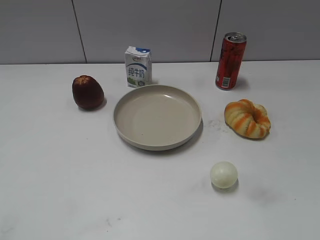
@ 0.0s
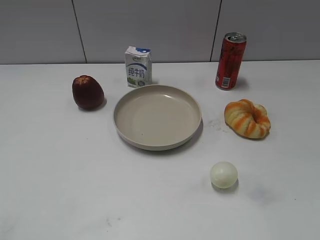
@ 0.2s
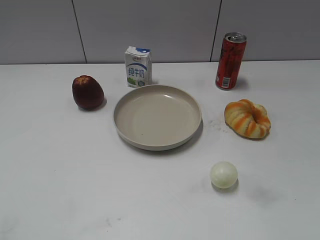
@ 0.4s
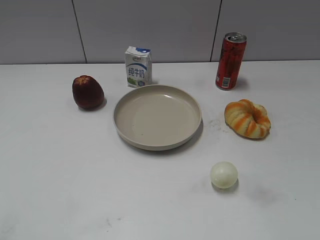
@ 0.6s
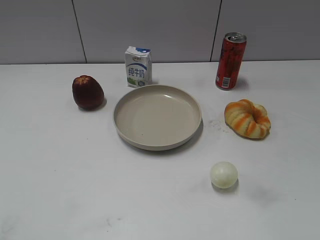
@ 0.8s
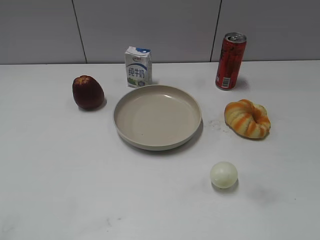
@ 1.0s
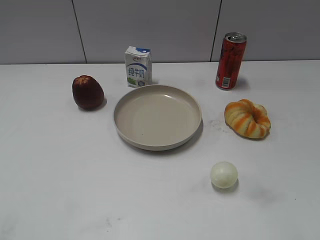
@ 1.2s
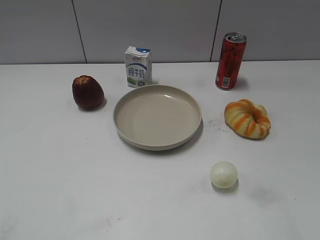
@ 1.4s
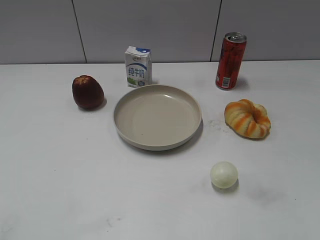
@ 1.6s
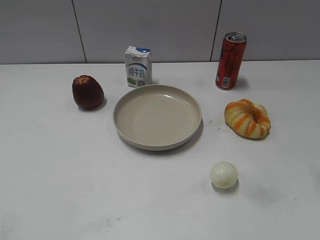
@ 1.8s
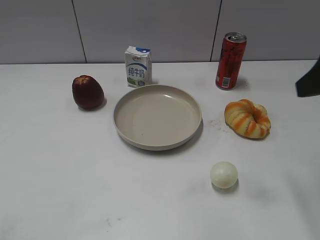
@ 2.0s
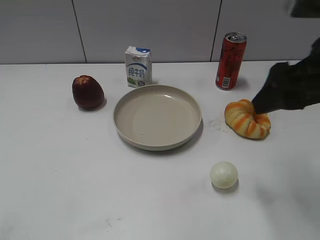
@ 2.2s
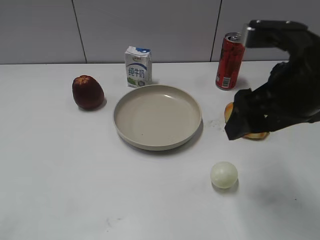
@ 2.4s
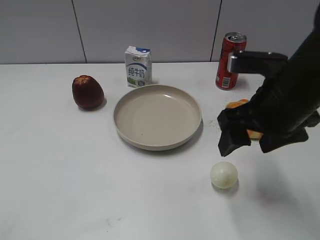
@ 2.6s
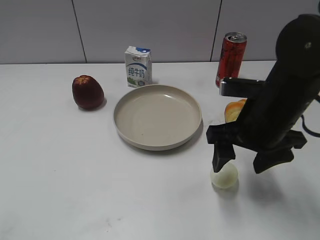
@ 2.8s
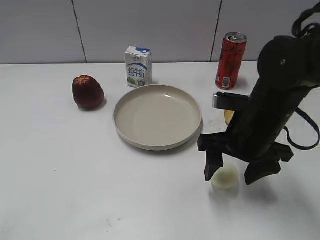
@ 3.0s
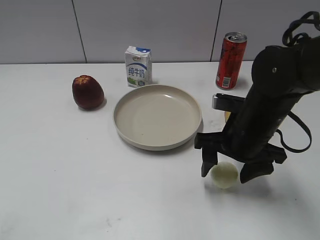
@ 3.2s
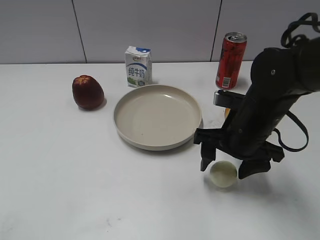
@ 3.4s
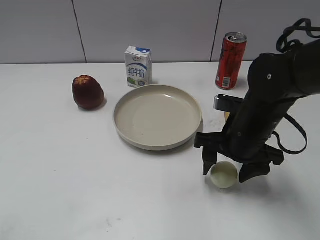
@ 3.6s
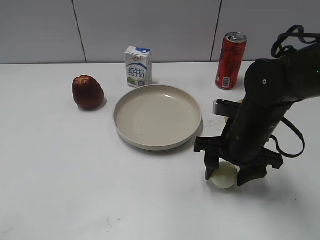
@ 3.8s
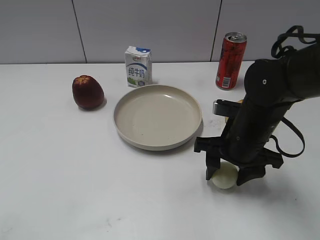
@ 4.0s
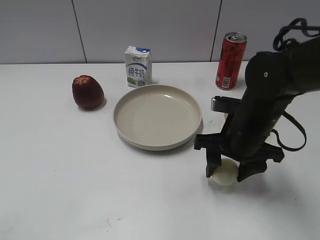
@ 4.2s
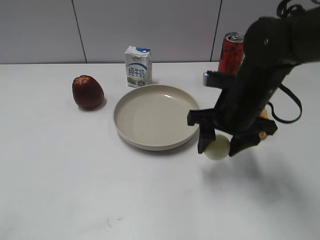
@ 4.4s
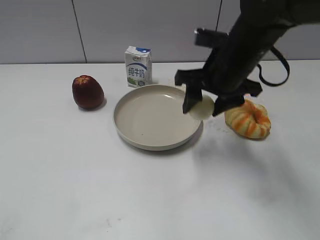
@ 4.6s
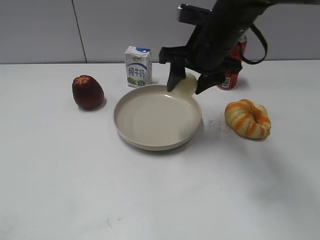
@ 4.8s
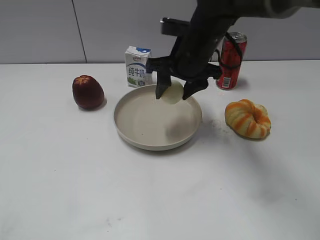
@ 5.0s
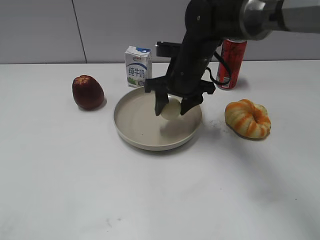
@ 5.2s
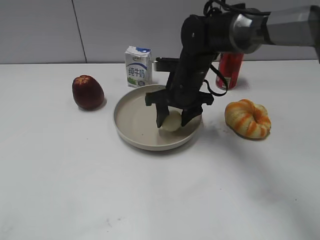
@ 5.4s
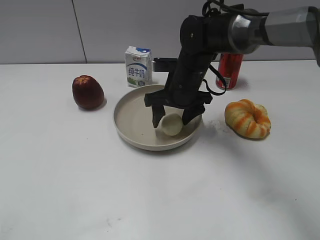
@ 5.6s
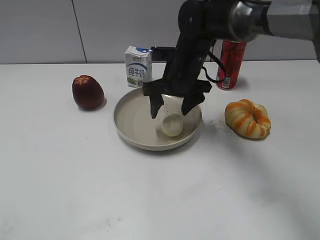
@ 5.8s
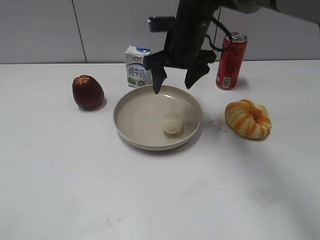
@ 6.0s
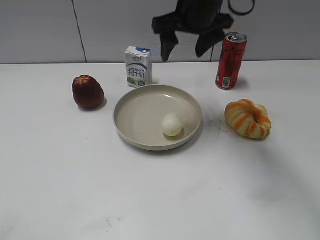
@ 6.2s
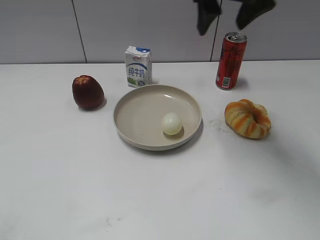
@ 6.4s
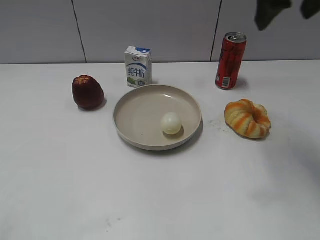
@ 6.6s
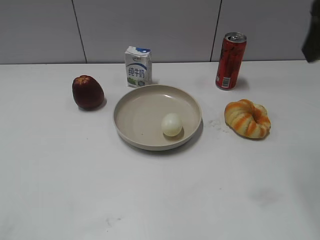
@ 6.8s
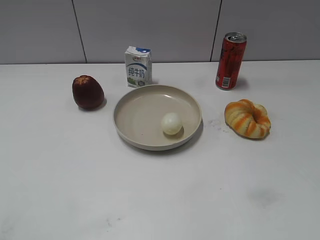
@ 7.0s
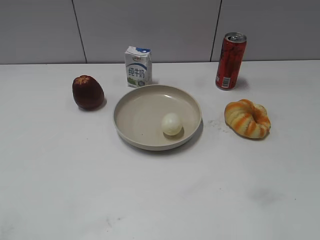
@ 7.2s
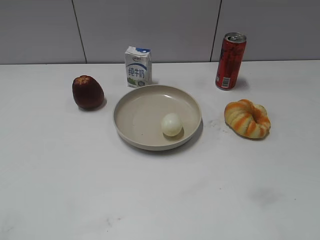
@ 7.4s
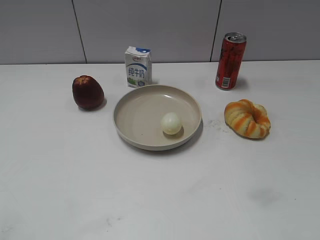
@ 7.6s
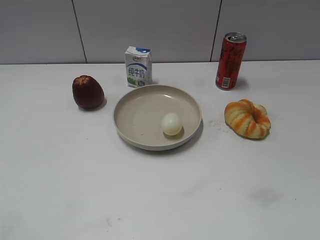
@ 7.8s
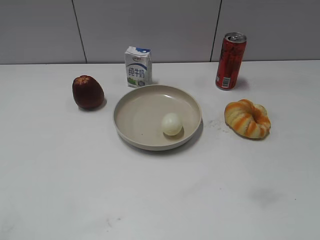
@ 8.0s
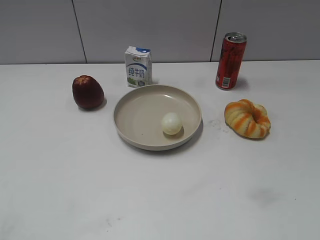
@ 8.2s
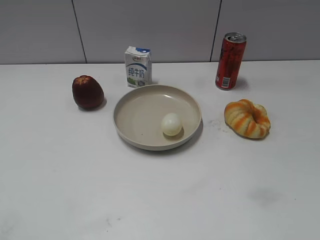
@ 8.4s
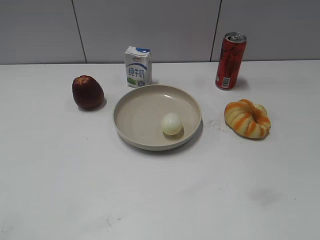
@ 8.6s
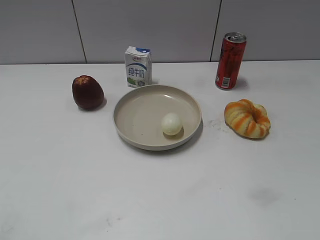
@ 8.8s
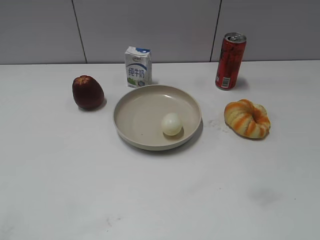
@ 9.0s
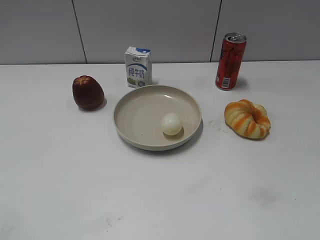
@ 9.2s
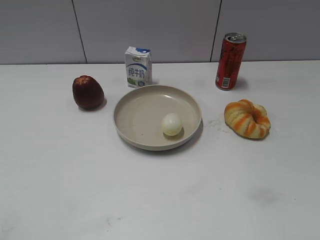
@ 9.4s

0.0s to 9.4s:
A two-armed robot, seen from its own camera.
Step, 0.8s to 4.0s: Grasp the egg with right gripper.
Step, 4.2s to 5.8s: Place the egg on the plate with right gripper.
1.6s to 3.2s: The right gripper goes some 25 cm downward, to the left and forward.
3.2s to 4.8s: The right gripper moves forward, upward and to the left, about 15 cm, and closes its fingers.
4.8s to 6.2s: The right gripper moves approximately 10 cm downward and comes back, and opens its fingers.
6.2s to 7.8s: The right gripper goes some 40 cm backward and to the right.

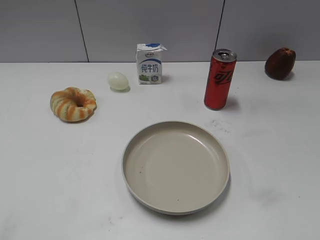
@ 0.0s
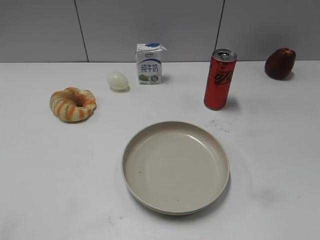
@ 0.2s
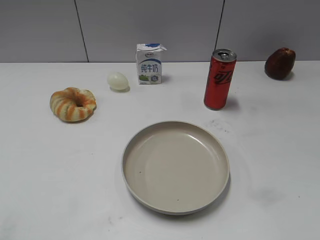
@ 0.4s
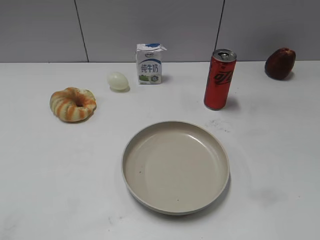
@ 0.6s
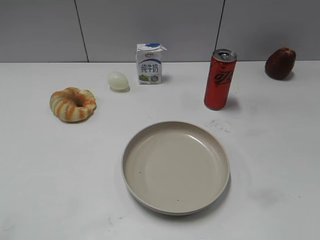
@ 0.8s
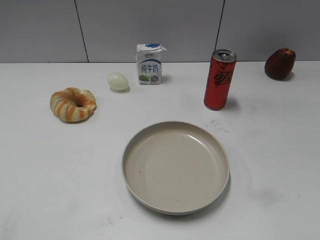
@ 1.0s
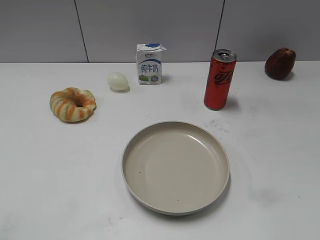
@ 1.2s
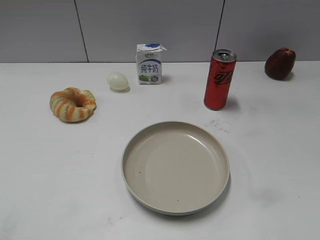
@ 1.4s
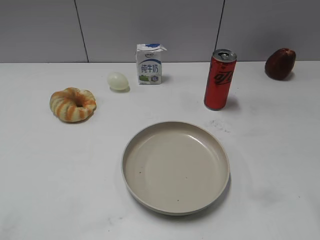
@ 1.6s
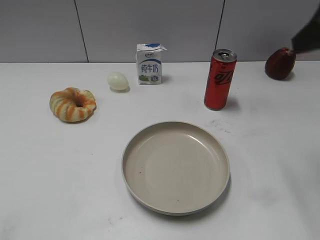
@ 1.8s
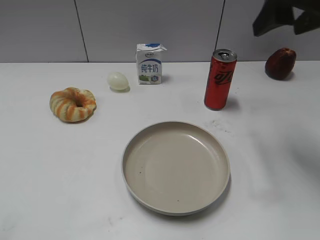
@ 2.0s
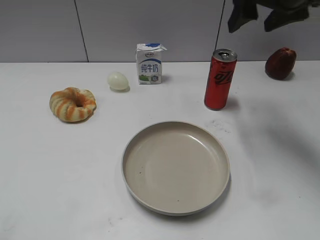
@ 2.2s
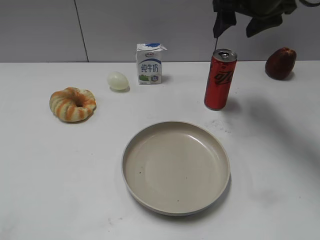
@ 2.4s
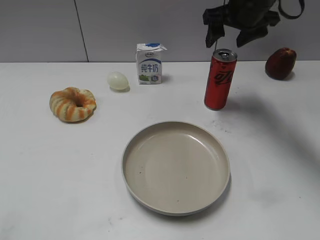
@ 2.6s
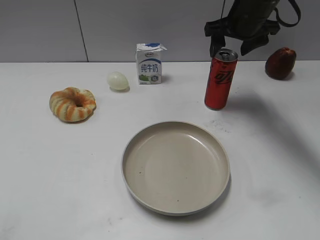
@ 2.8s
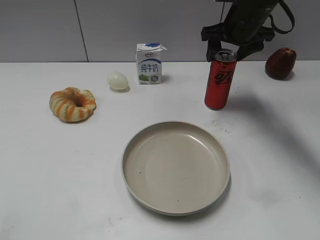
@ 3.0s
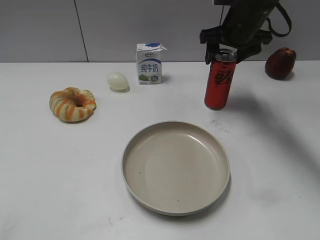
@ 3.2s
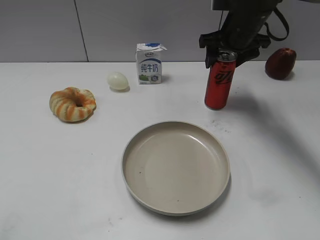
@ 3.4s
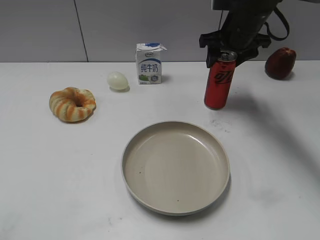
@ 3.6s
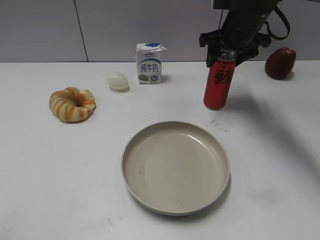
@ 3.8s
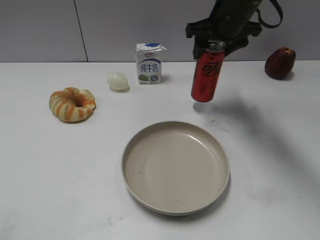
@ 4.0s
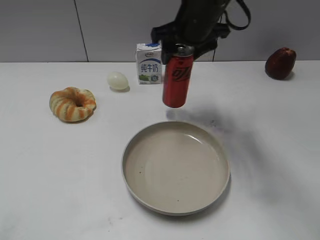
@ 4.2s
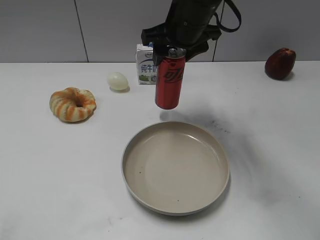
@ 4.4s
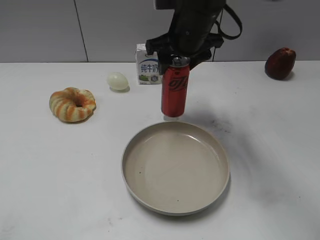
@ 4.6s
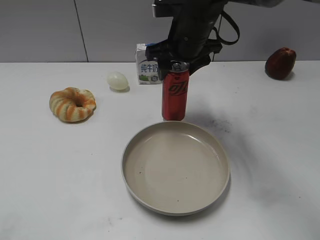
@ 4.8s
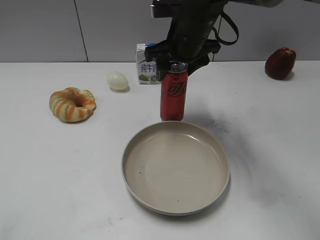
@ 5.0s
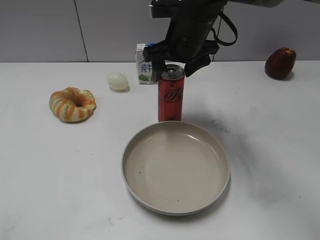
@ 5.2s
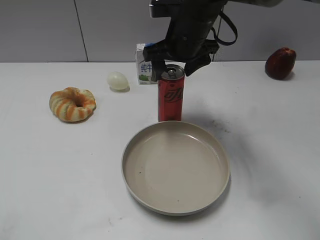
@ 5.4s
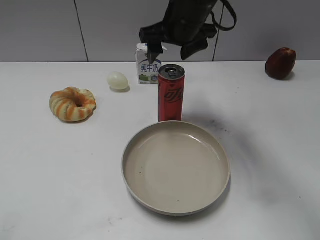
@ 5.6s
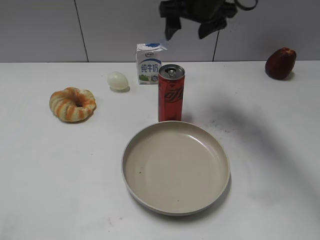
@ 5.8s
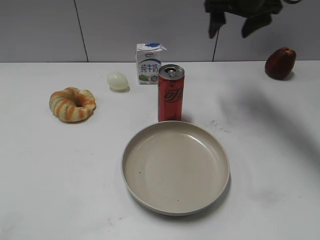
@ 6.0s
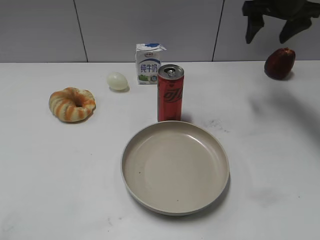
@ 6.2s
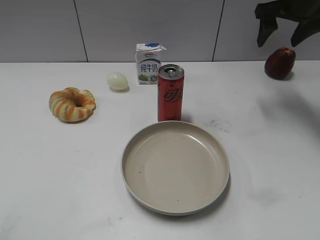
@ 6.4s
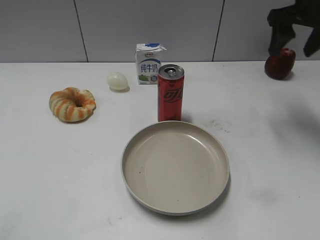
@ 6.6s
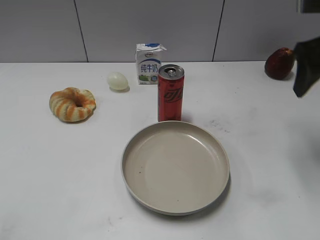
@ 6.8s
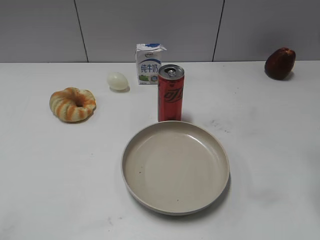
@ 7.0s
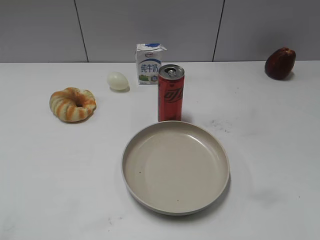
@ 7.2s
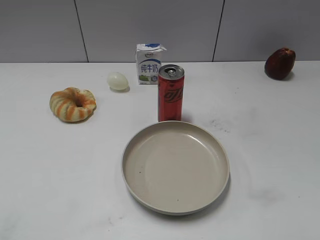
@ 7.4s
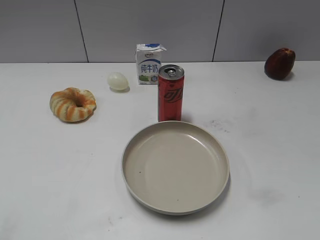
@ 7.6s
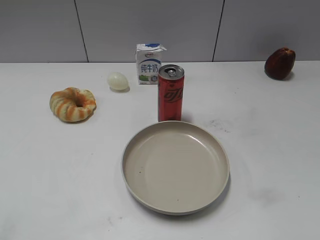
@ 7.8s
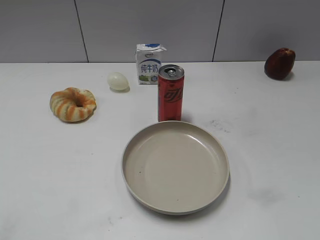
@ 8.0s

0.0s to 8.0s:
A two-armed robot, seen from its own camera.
Step, 0.8s to 3.4s: Grasp the cola with right gripper.
Step, 3.8s to 5.6s: Place the cola on the table with right gripper.
1.6s to 3.2s: The right gripper is displaced forward and downward by roughly 35 cm, and opens its fingers.
3.2s to 4.8s: The right gripper is displaced to the left and backward by about 10 cm, and closes its fingers.
4.8s to 6.4s: The right gripper shifts some 20 cm to the right, and opens its fingers.
6.4s to 8.0s: The right gripper travels backward by some 40 cm.
